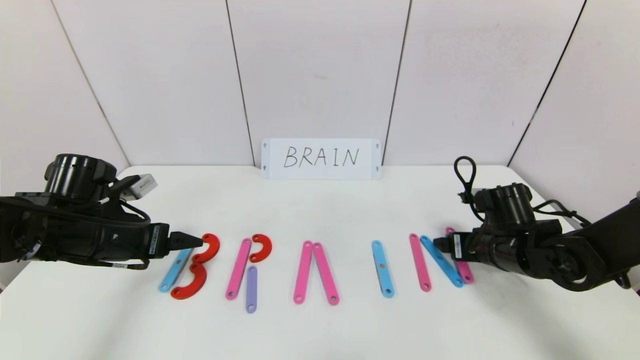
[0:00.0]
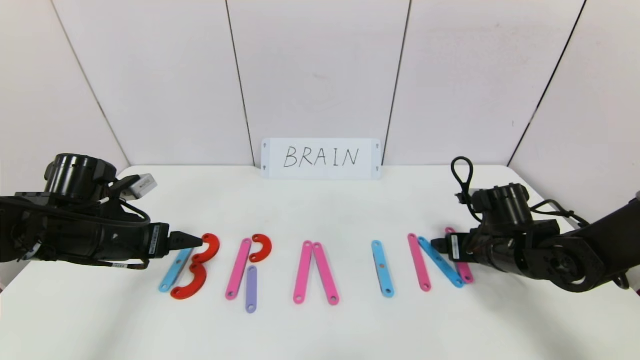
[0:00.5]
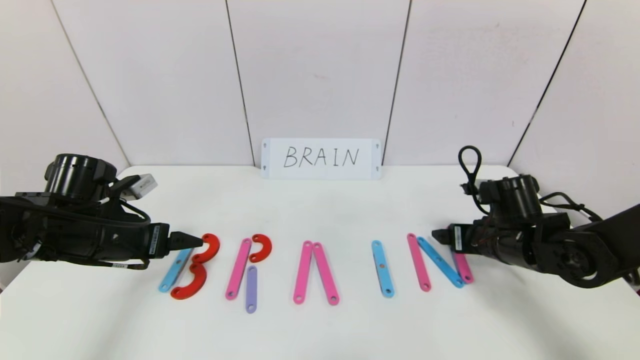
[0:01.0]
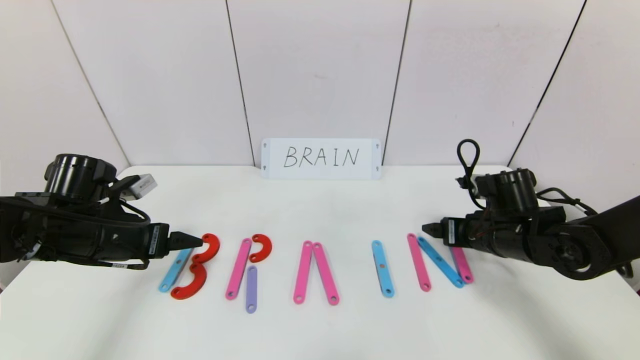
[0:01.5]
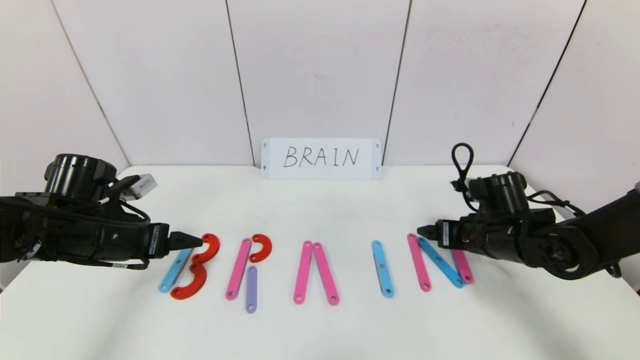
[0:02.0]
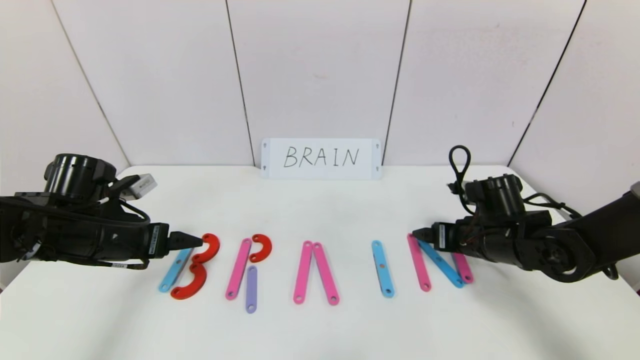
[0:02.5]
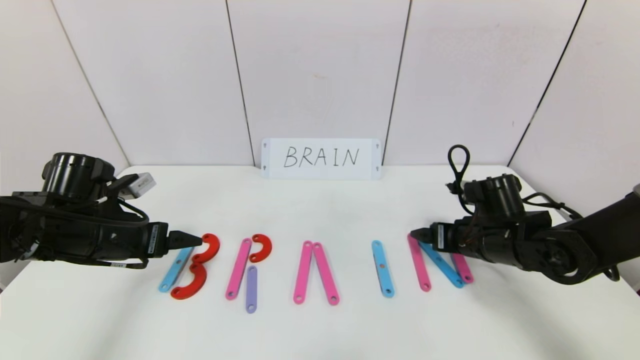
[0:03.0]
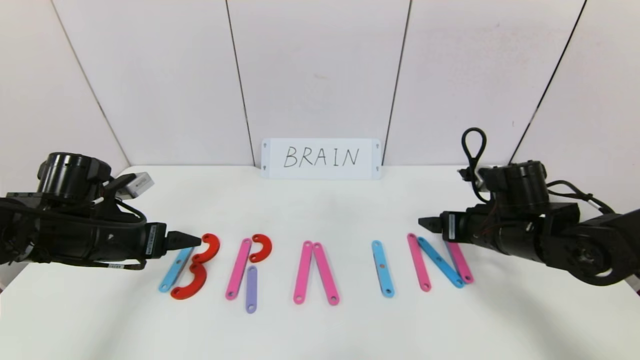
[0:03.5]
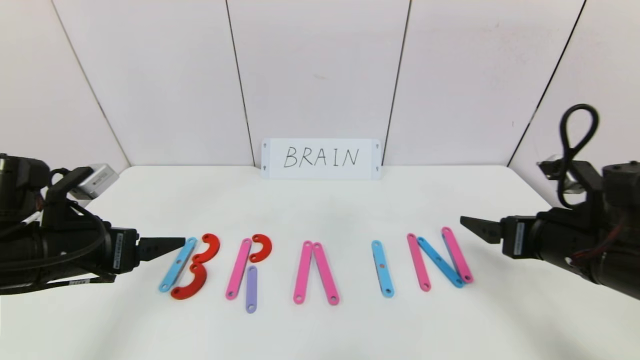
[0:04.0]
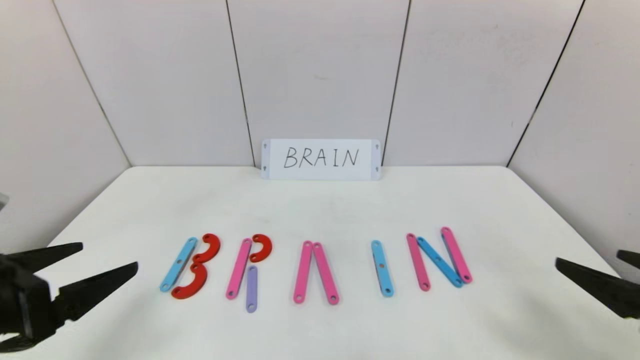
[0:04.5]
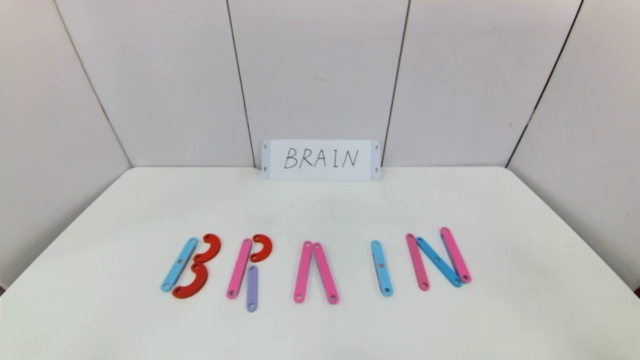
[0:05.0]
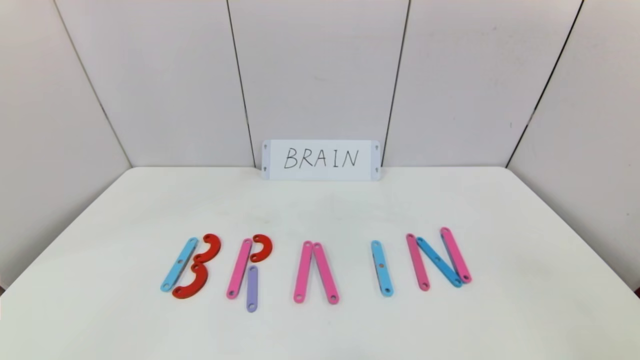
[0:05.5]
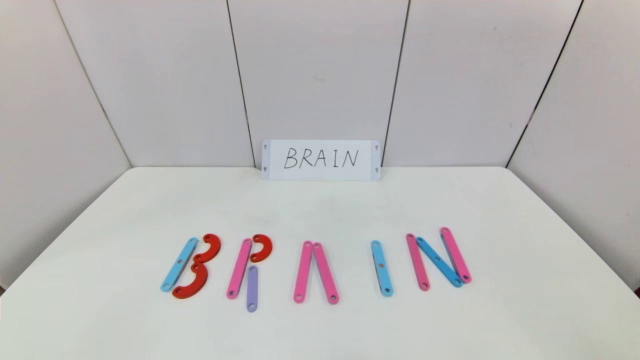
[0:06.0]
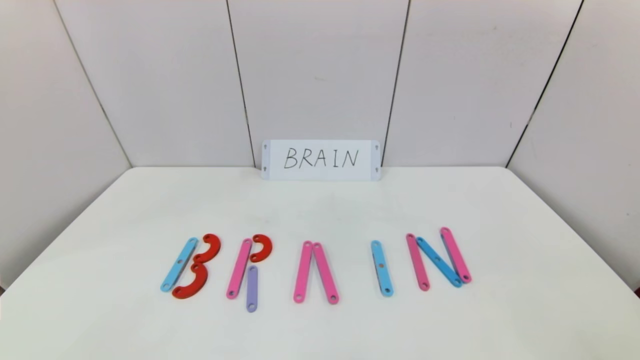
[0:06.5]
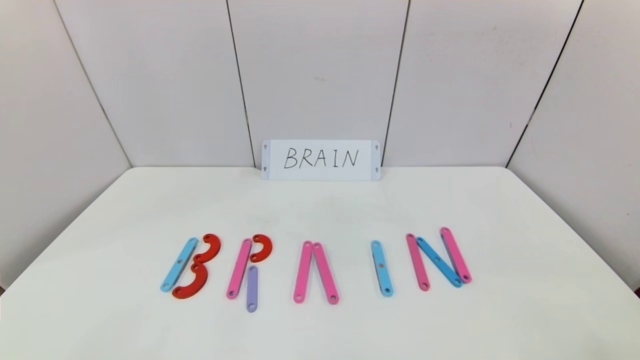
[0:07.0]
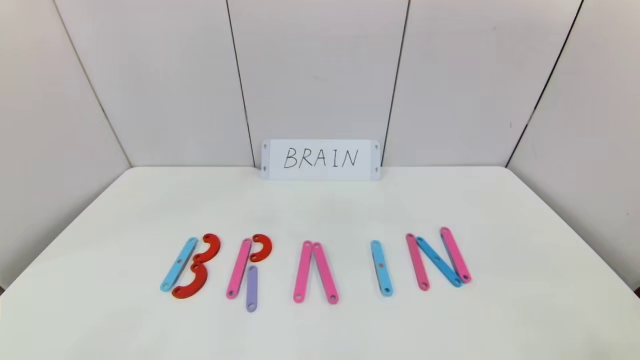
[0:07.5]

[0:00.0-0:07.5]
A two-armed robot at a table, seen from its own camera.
Task of the whole recording: rearrange the word baai as brain.
0:00.0 to 0:02.0: The grippers move only a little.
0:02.0 to 0:04.0: The left gripper travels backward by about 5 cm. The right gripper heads backward and upward, covering roughly 15 cm.
0:04.0 to 0:05.5: The grippers both shift backward by roughly 25 cm.
